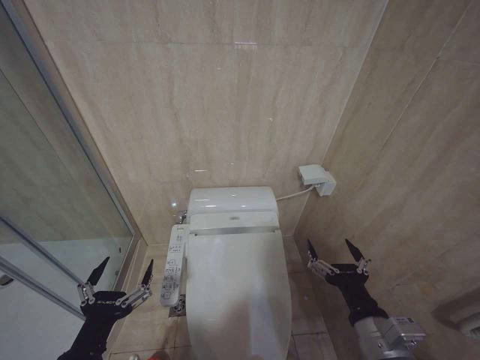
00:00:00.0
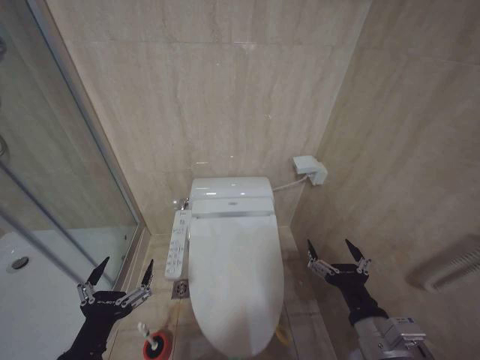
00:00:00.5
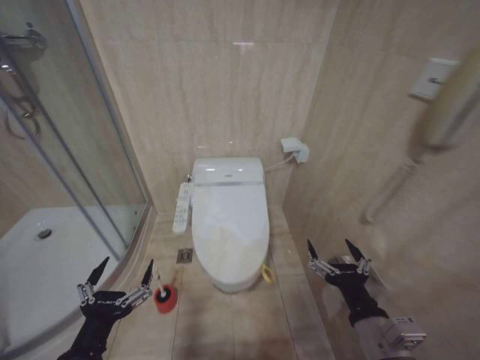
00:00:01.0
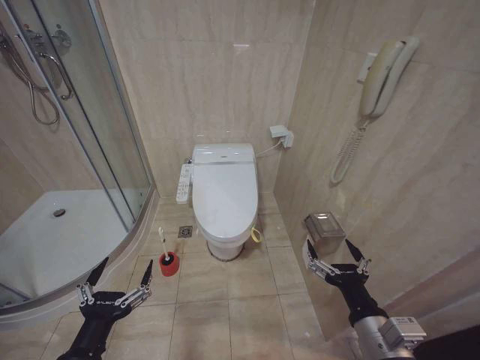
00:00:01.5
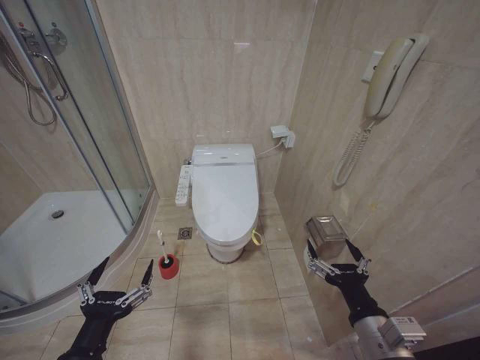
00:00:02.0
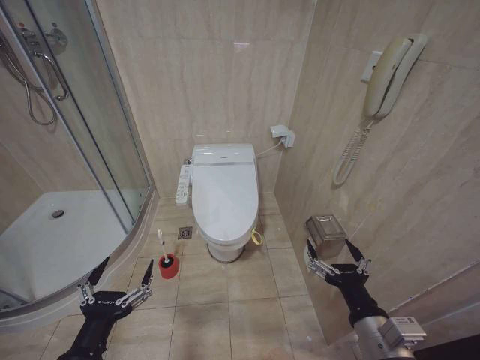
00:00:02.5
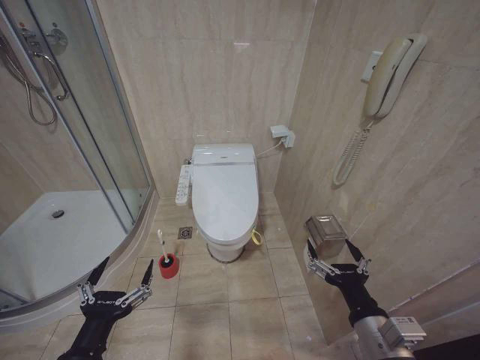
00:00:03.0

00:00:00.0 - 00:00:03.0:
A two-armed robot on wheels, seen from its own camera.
Task of the whole recording: Open the toilet lid, clean the toilet bowl with a toilet brush, close the toilet lid, and flush.
00:00:01.5 - 00:00:03.0: The two grippers keep their place.
